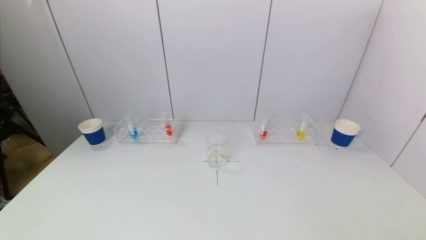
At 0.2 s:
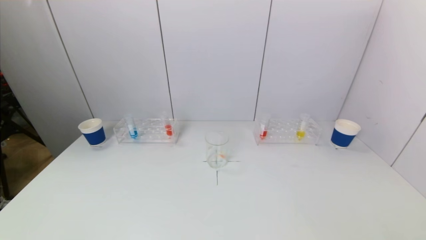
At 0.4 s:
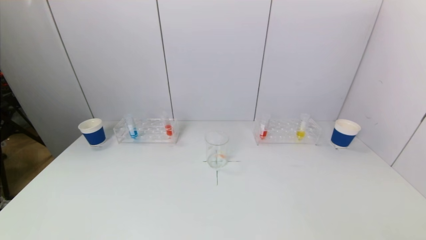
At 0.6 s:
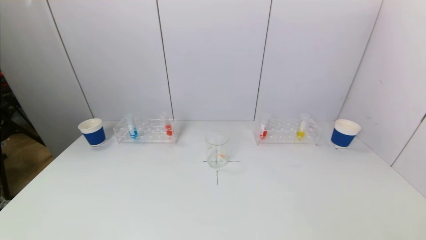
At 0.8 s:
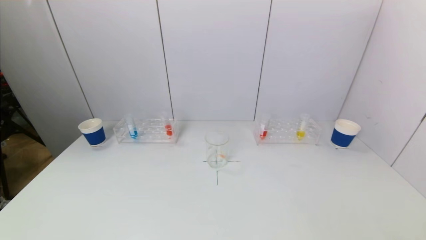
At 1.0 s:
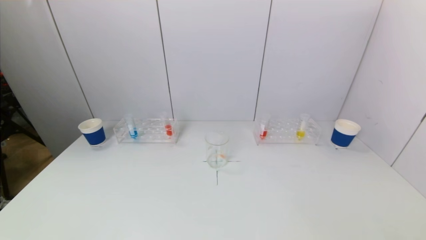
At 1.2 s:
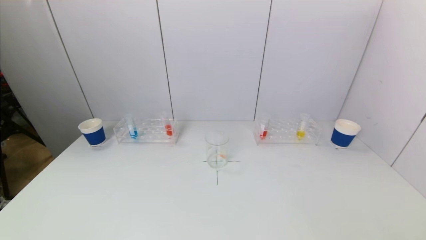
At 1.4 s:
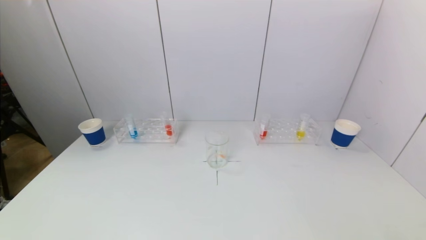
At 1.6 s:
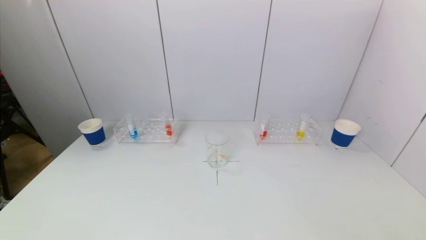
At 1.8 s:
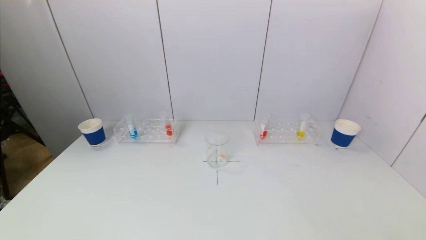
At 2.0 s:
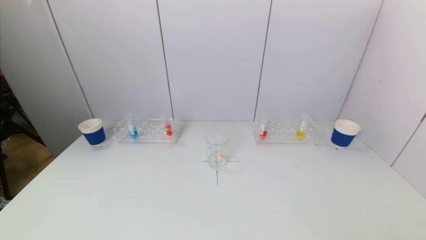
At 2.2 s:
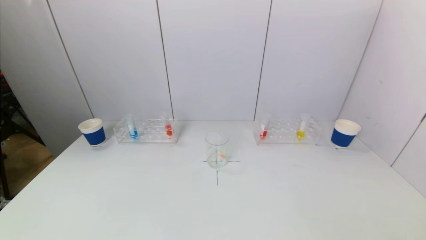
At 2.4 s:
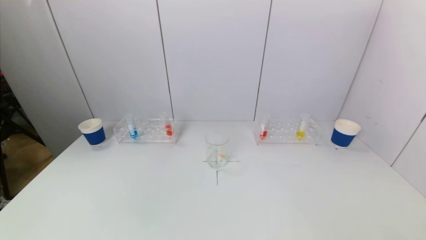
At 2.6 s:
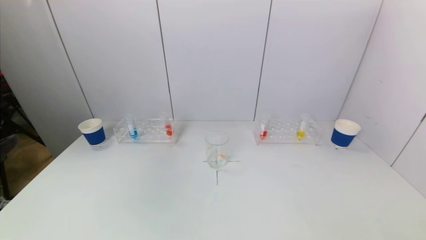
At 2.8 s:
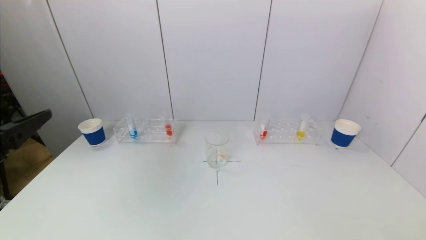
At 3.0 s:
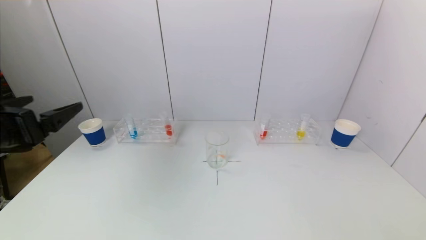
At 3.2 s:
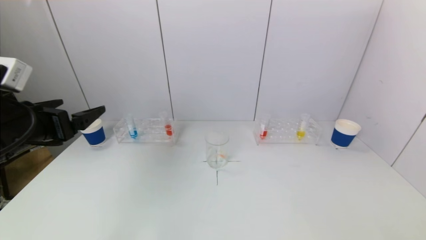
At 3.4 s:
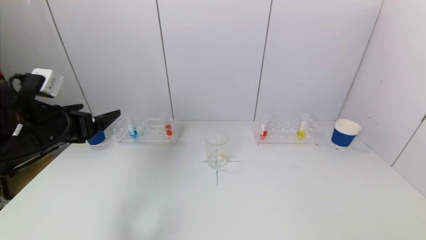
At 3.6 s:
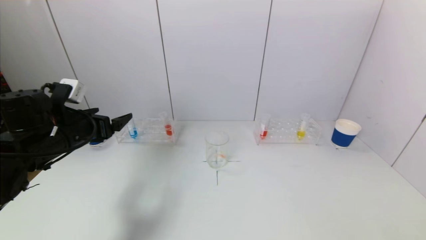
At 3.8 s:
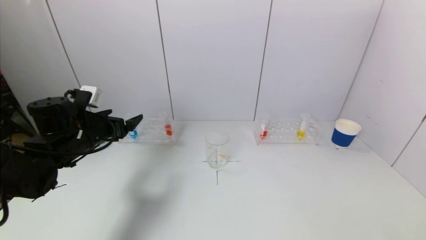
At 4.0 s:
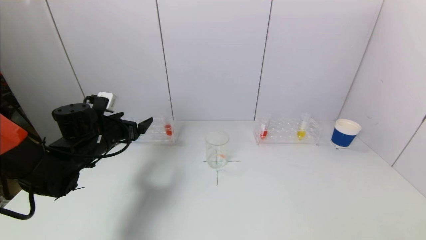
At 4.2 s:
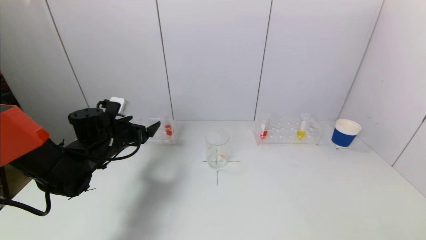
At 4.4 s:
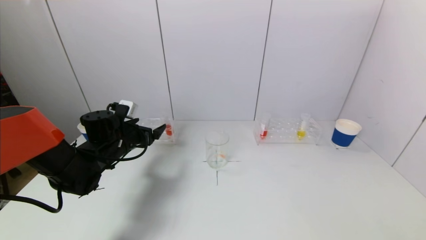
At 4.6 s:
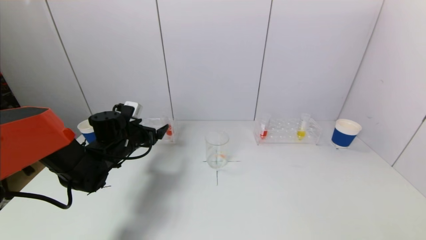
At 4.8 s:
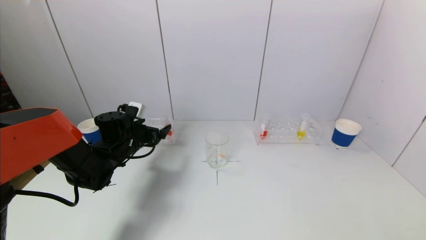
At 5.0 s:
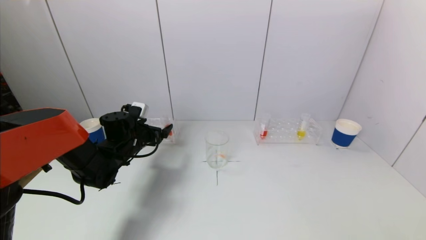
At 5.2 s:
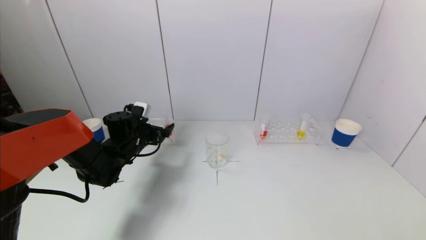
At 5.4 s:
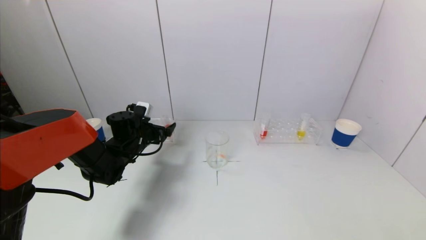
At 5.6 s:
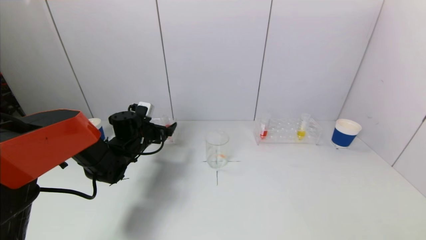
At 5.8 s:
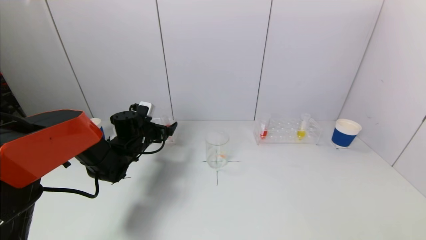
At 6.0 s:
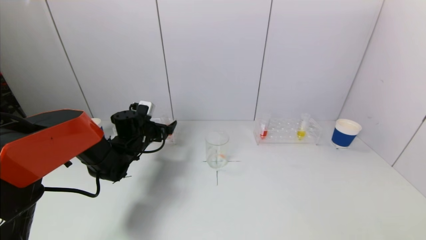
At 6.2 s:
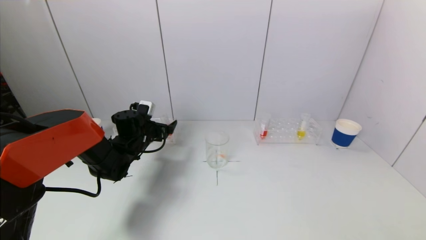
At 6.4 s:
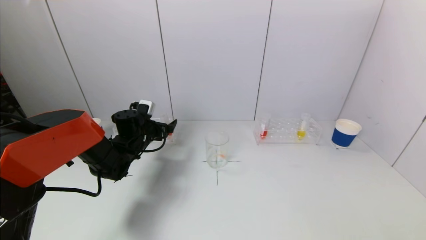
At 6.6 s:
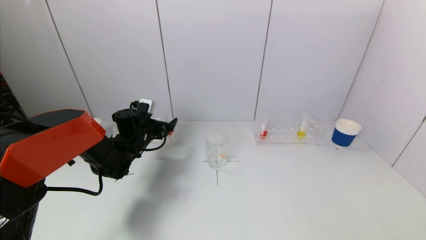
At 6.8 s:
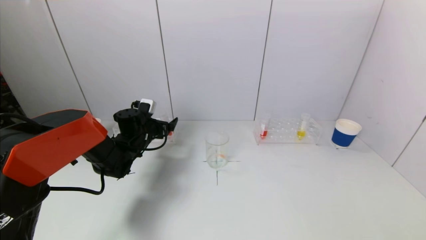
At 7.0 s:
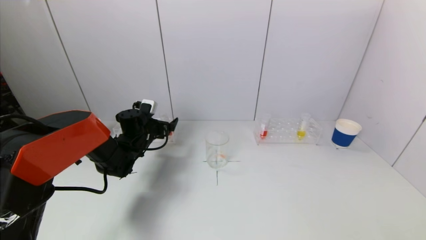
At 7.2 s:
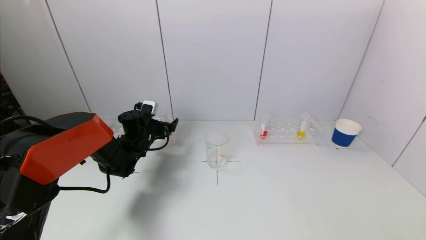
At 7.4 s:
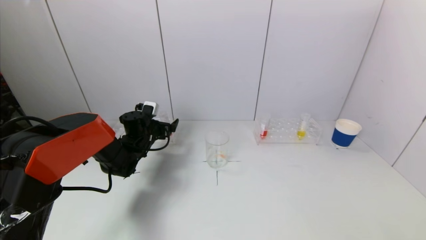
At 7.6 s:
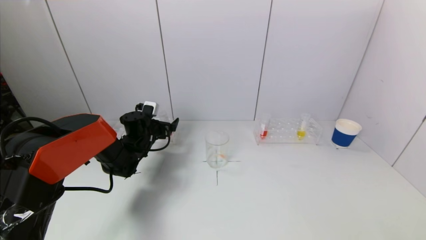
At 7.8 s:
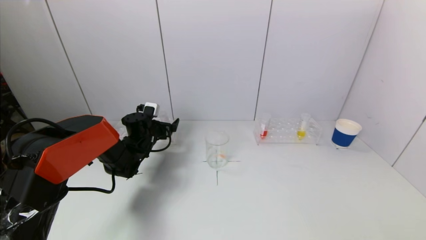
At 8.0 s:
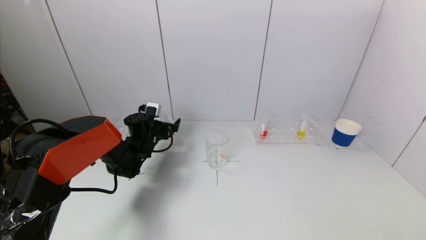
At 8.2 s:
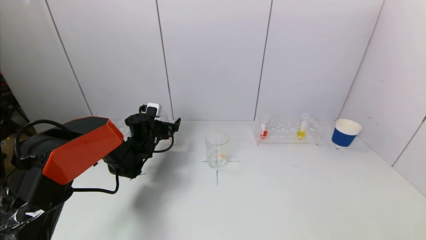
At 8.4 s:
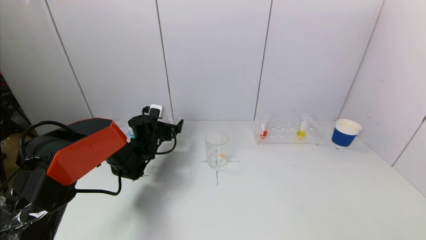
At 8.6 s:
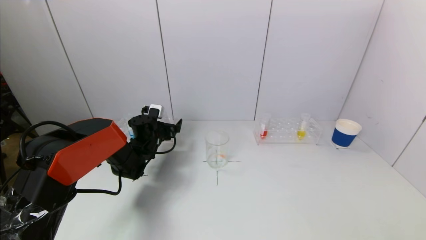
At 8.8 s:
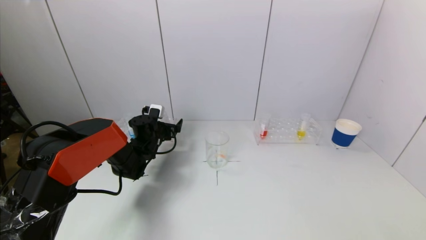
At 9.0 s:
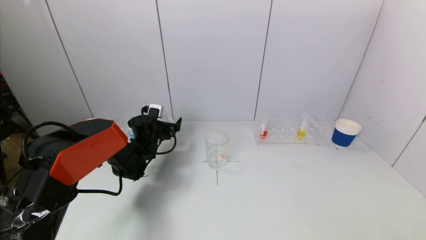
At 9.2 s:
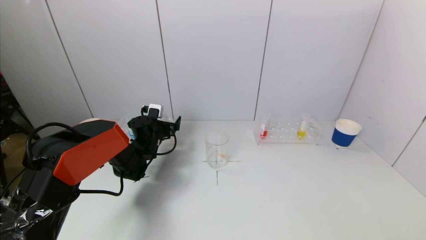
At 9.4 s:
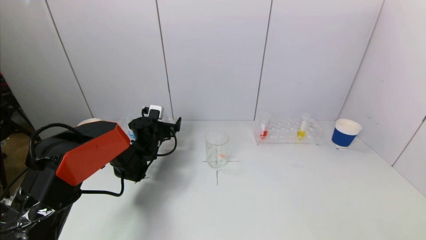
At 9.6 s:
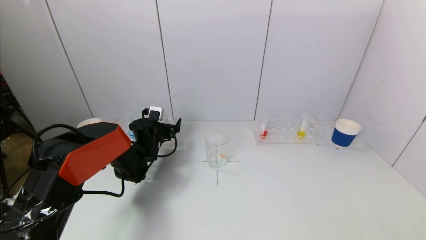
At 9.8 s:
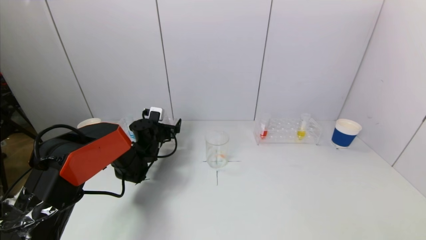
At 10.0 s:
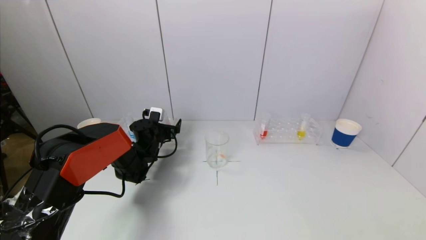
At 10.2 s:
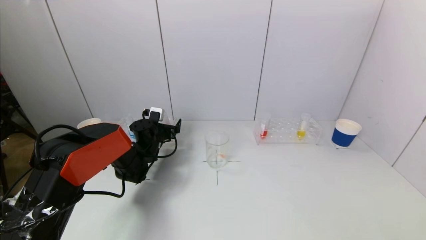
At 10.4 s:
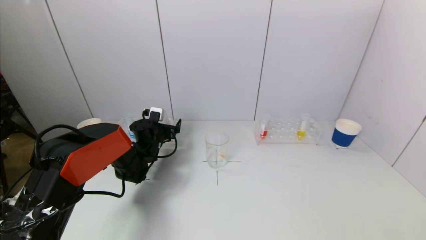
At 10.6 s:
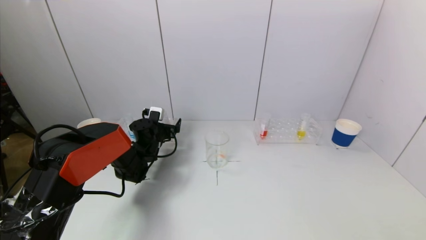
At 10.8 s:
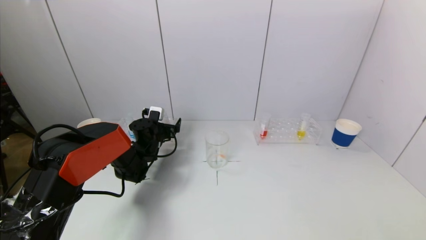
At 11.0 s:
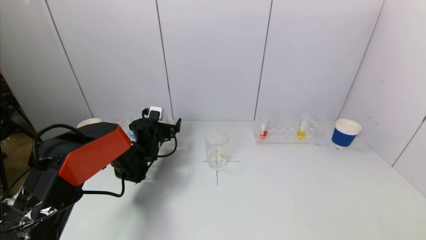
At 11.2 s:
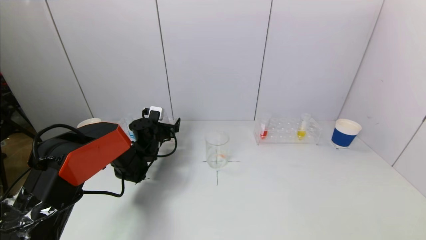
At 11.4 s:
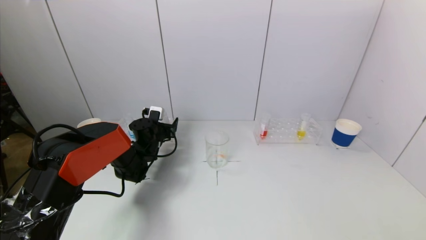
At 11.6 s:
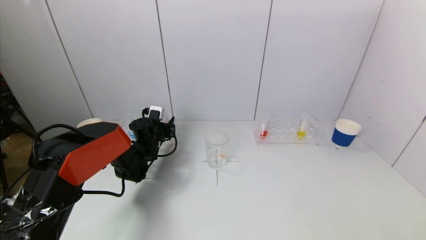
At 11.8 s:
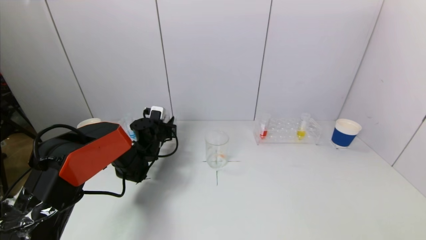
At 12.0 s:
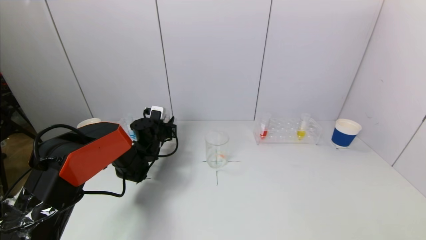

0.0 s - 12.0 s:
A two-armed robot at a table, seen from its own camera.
Task of the whole recording: pick up a test tube with pigment on left test tube rack and a test tube with pigment on right test tube rack by grippers and pour them into the beaker.
Step, 0.0 s - 11.8 s: Grasp the red reagent with the left gripper.
0.0 s - 1.6 s: Both grippers stay about where they are.
1.6 s - 3.0 s: The left gripper travels upward and forward by about 25 cm.
3.0 s - 4.4 s: The left gripper is displaced forward and downward by some 25 cm.
4.4 s - 6.0 s: The left gripper shifts some 5 cm forward.
6.0 s - 9.0 s: The grippers move only a little.
9.0 s - 10.4 s: The two grippers keep their place.
10.4 s - 12.0 s: The left gripper closes its fingers.

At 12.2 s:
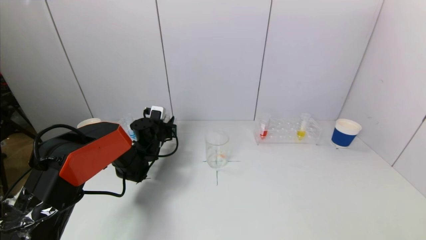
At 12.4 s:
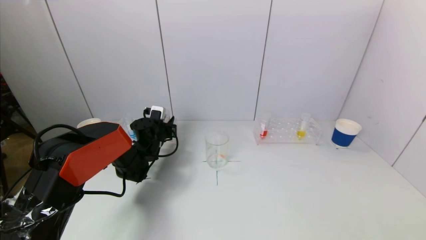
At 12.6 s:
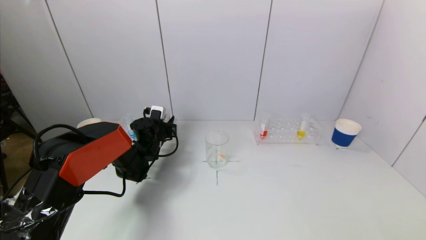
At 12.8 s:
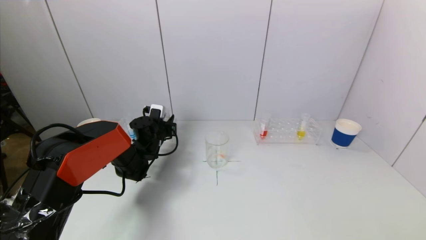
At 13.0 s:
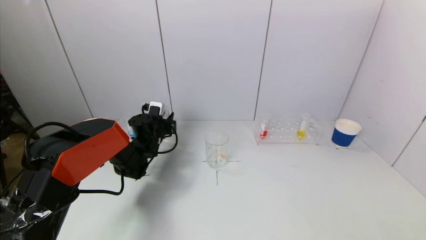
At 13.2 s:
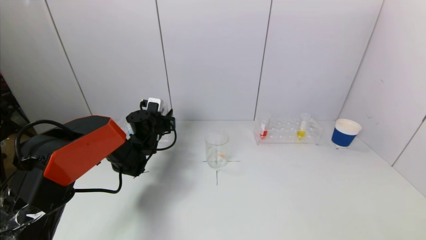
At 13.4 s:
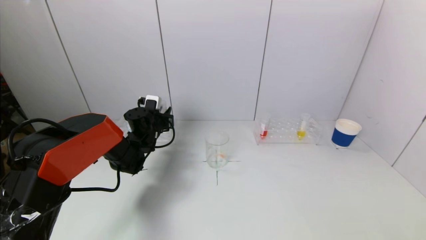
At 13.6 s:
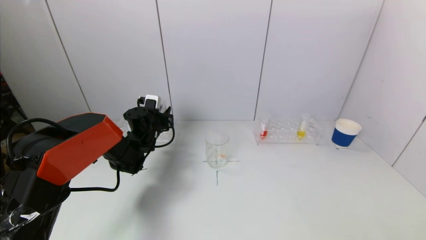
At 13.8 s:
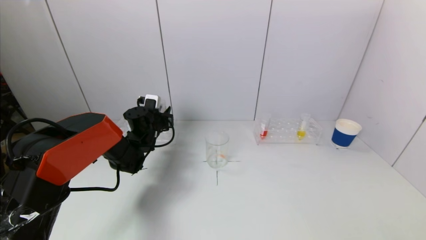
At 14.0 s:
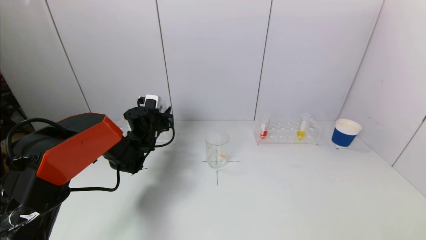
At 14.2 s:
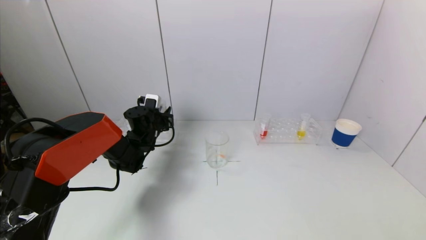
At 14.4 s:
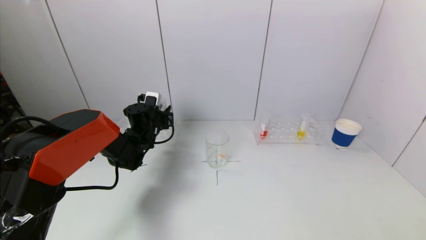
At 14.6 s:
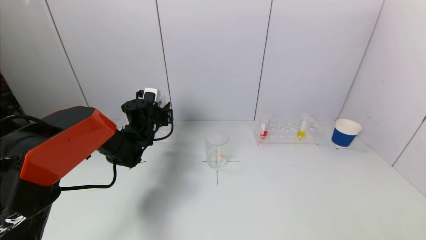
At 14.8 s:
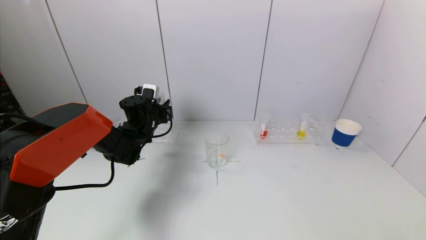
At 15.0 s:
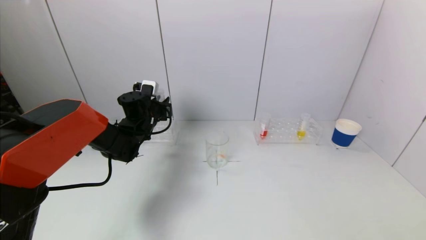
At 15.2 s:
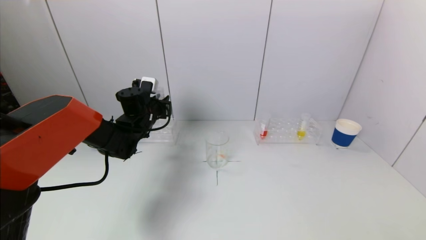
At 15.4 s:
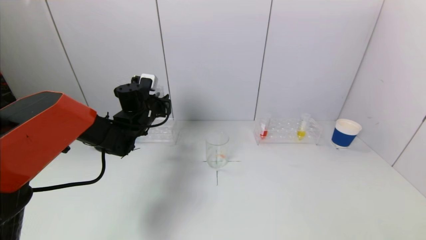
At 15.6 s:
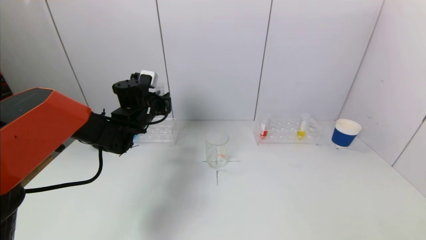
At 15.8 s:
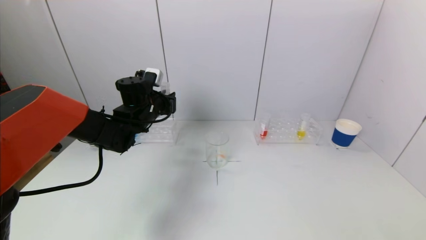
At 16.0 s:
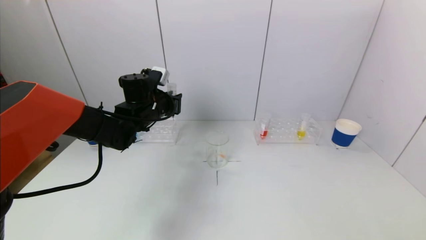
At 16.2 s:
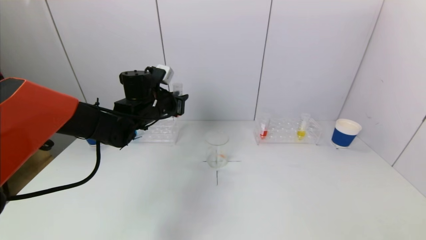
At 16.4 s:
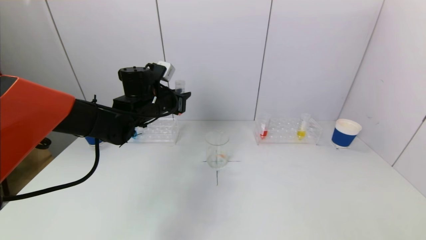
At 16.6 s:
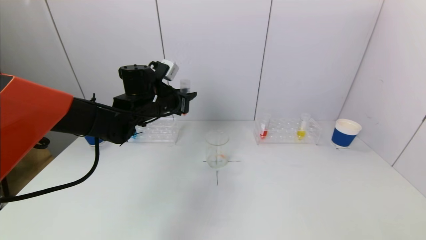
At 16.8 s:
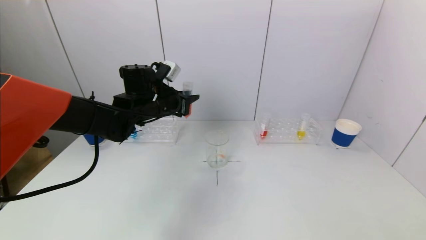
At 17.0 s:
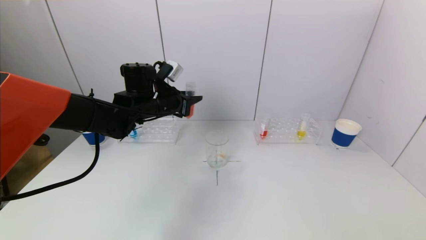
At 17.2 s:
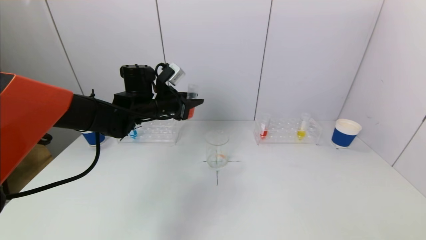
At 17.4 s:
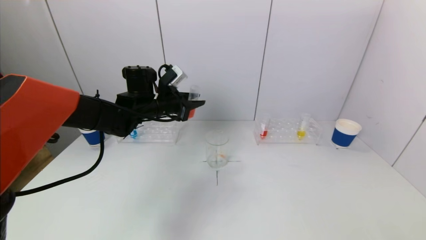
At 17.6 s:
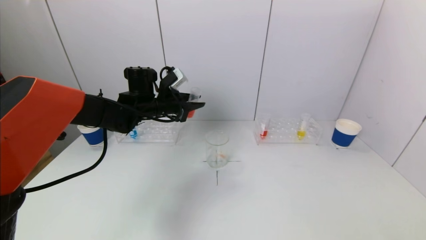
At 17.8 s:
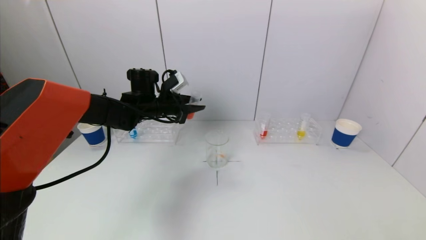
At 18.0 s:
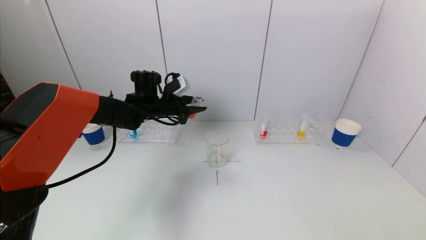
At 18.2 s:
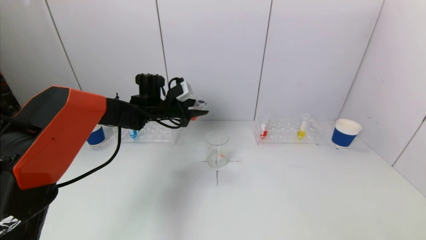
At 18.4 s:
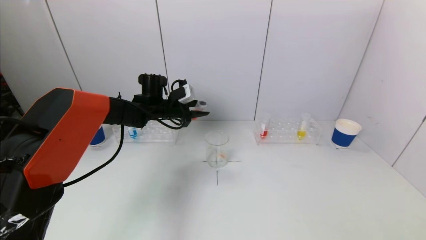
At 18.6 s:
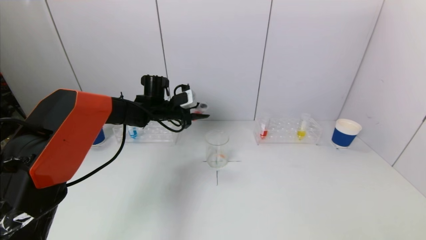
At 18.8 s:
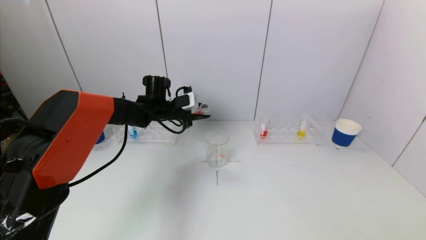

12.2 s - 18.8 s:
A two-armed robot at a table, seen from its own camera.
Task of the whole recording: pick up a test tube with pigment on left test tube rack and a test tube with pigment on right test tube rack by grippers and pour them into the beaker.
12.2 s - 13.8 s: The grippers stay close to where they were, moving slightly.
13.8 s - 15.4 s: The left gripper moves upward, about 5 cm.
15.4 s - 17.2 s: The left gripper ends up approximately 5 cm from where it was.
17.2 s - 18.8 s: The left gripper shifts about 5 cm forward.
